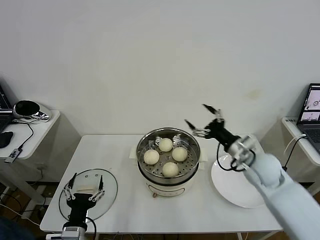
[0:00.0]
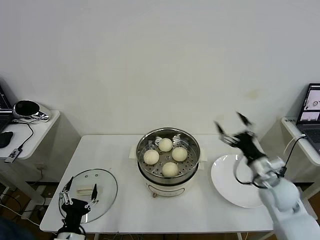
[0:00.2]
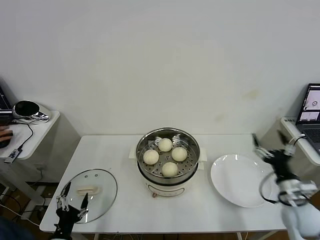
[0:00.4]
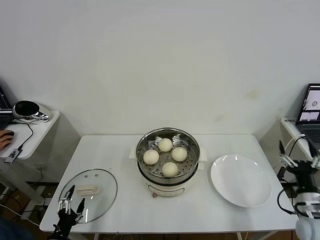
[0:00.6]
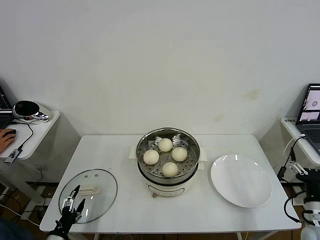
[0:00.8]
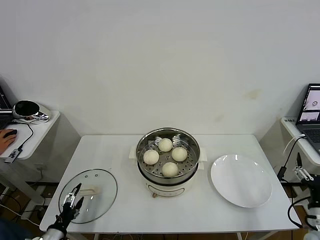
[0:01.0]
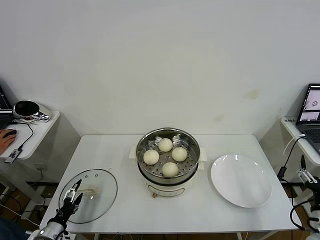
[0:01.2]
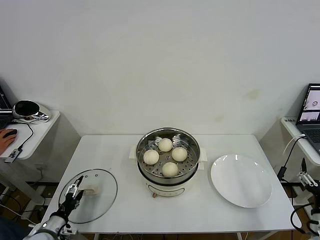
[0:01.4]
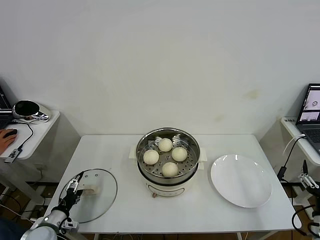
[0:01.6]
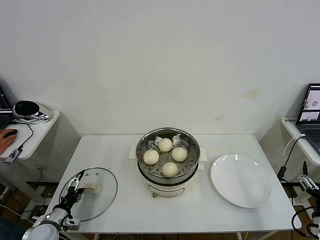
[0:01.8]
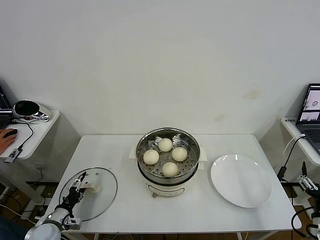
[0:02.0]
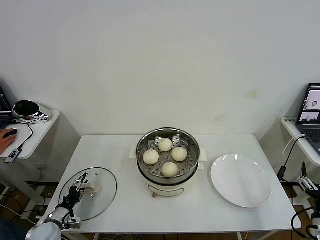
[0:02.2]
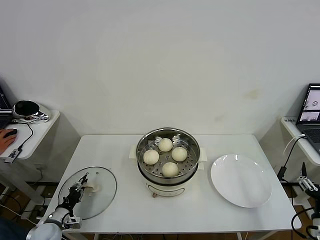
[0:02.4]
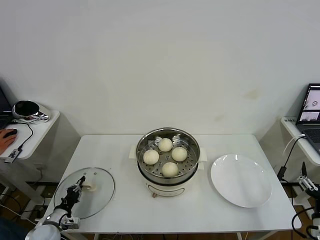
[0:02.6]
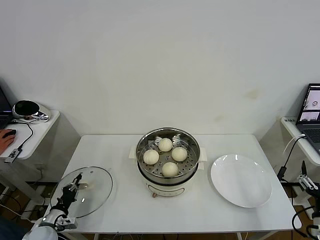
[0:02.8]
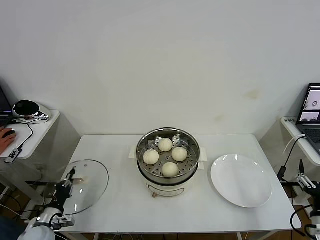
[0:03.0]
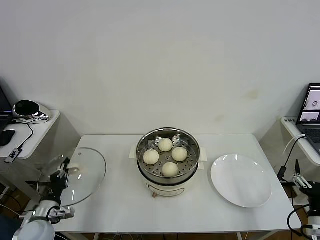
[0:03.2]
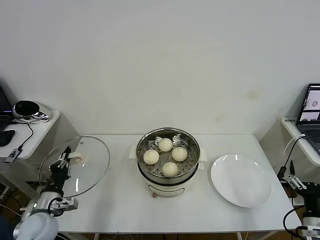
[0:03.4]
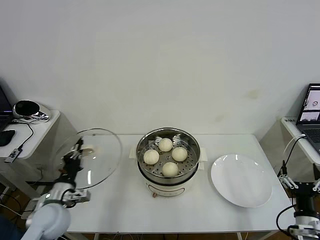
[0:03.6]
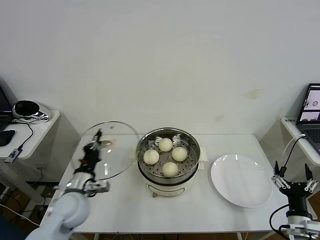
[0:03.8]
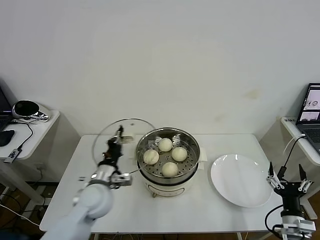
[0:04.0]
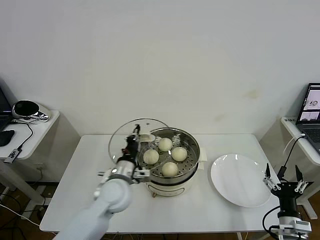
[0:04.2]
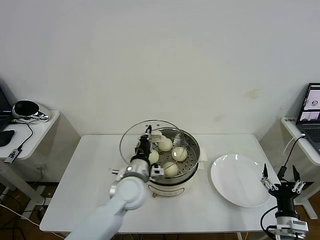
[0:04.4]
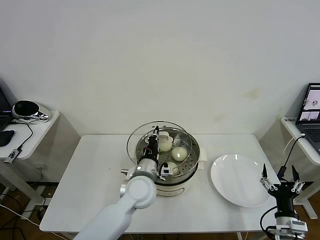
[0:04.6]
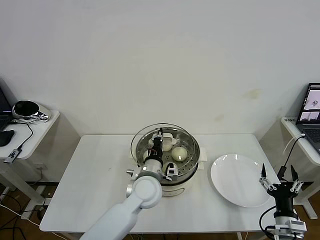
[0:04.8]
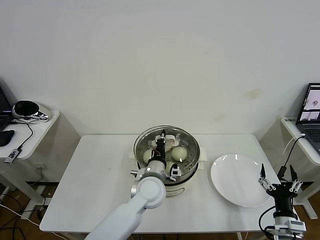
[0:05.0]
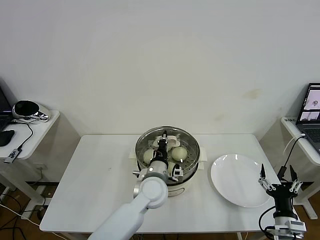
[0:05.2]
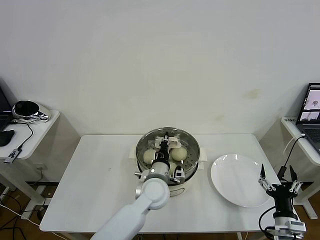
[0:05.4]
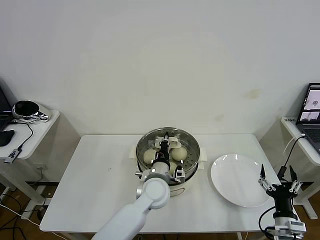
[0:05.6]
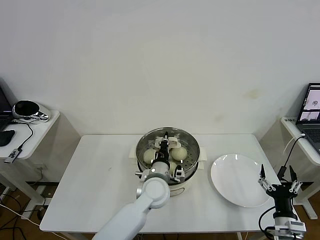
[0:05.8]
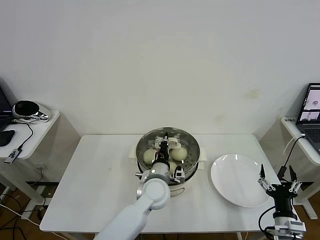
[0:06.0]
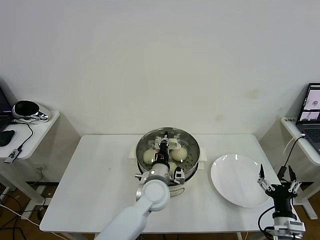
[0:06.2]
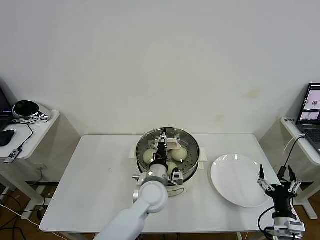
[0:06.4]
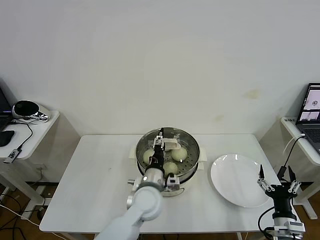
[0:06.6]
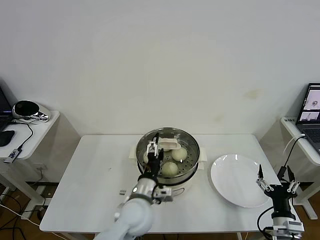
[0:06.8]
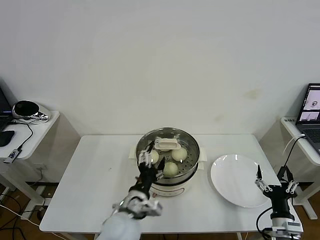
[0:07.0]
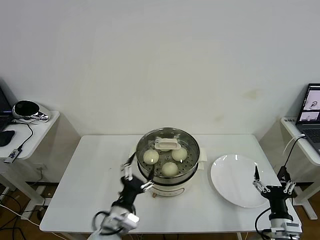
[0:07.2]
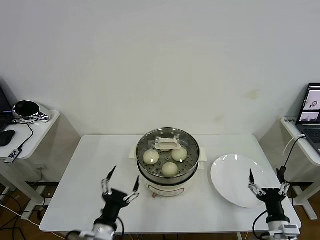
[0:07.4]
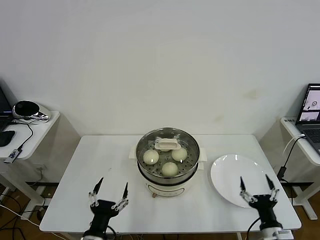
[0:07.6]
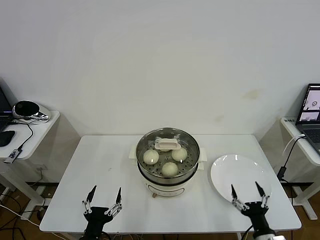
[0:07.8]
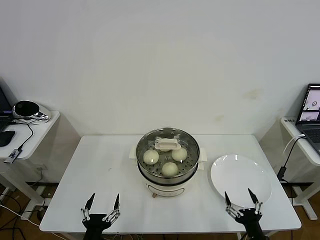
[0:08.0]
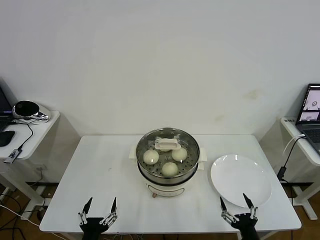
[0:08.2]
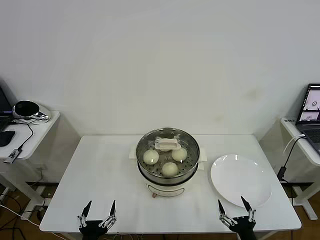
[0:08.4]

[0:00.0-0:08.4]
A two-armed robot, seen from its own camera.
Task of the whole recording: take steamed baozi put them in steamer then cover it.
Step, 0:00.0 to 0:02.6: Grasp the pot lid with left gripper.
Step, 0:02.8 to 0:06.8: Place the pot lid on the steamer with left gripper.
0:00.0 to 0:01.4: The left gripper shifts roughly 20 cm to the left and downward; the right gripper goes roughly 30 cm backward, to the right and downward.
0:01.4 to 0:02.8: The left gripper closes.
0:02.8 to 0:04.2: The right gripper goes approximately 5 cm to the left; the left gripper shifts roughly 30 cm to the right and upward.
0:04.2 to 0:05.6: The left gripper goes some 15 cm to the right.
0:05.6 to 0:07.0: The left gripper is displaced backward and to the left by some 10 cm, and opens its fingers.
0:07.0 to 0:08.4: The right gripper goes approximately 10 cm backward and to the left, while the left gripper goes about 25 cm backward, to the left and downward.

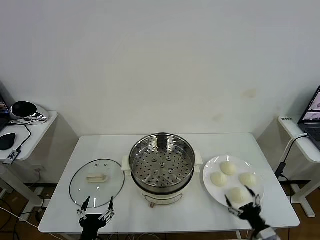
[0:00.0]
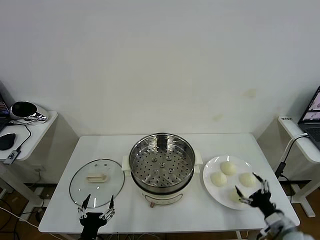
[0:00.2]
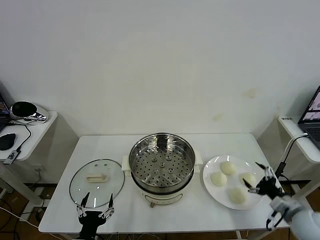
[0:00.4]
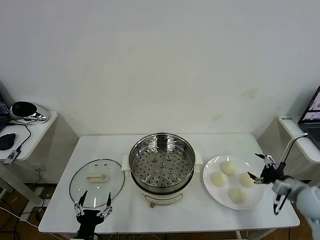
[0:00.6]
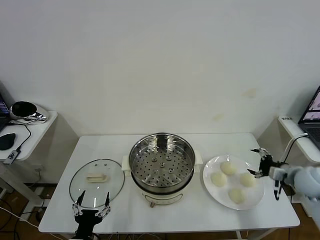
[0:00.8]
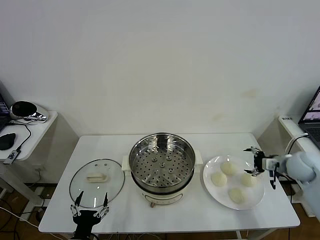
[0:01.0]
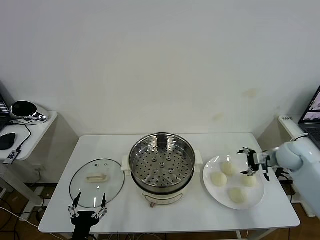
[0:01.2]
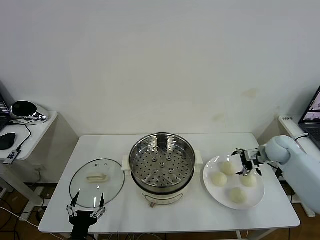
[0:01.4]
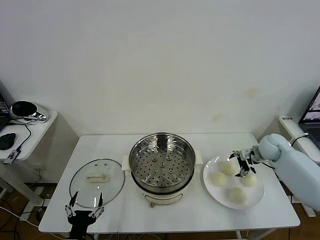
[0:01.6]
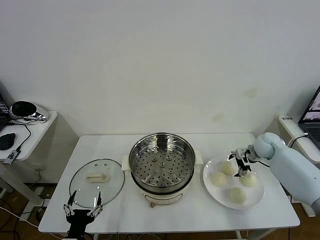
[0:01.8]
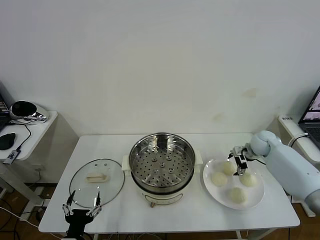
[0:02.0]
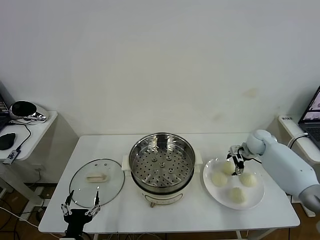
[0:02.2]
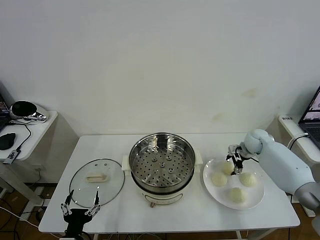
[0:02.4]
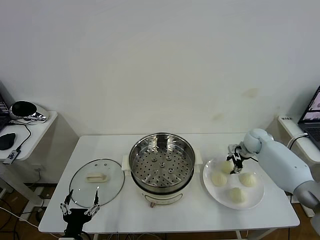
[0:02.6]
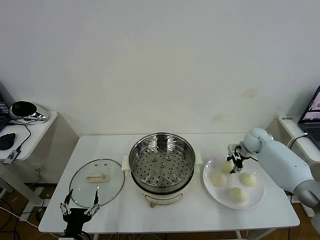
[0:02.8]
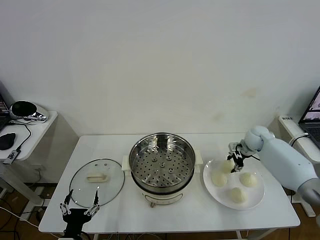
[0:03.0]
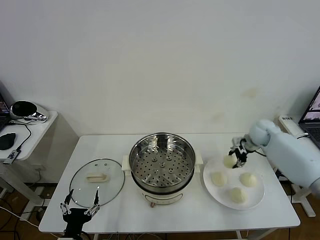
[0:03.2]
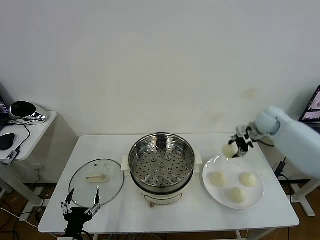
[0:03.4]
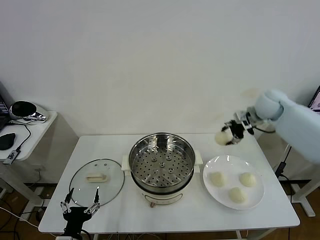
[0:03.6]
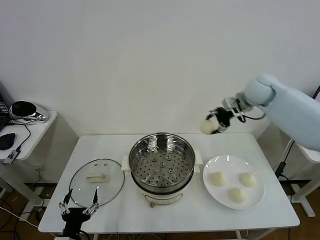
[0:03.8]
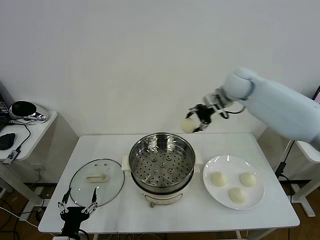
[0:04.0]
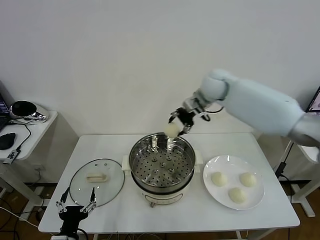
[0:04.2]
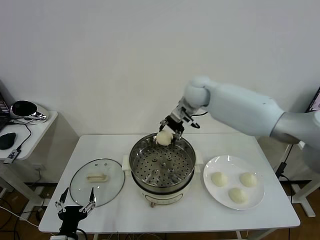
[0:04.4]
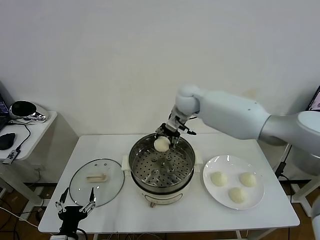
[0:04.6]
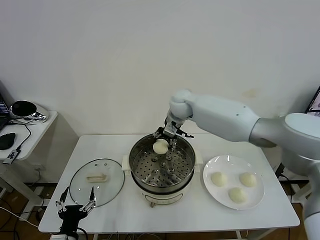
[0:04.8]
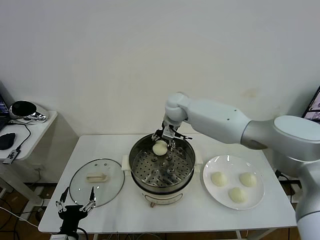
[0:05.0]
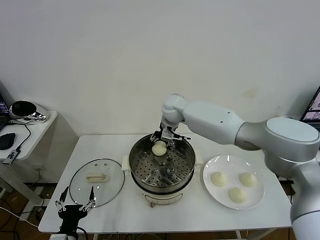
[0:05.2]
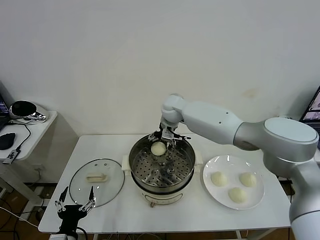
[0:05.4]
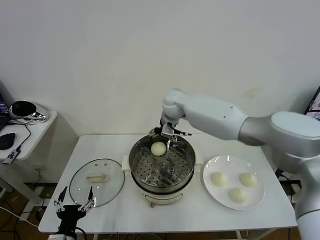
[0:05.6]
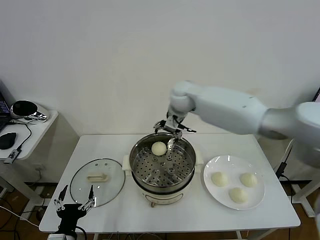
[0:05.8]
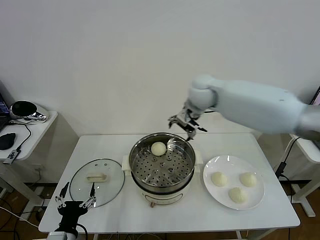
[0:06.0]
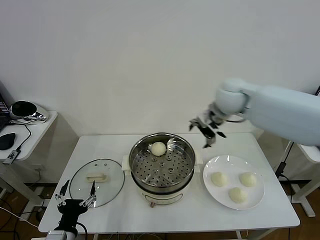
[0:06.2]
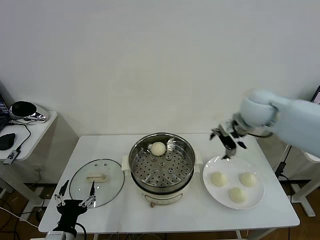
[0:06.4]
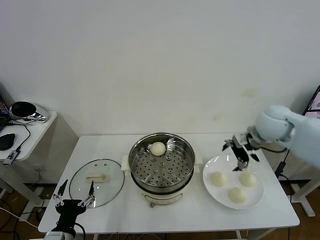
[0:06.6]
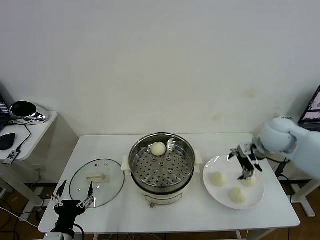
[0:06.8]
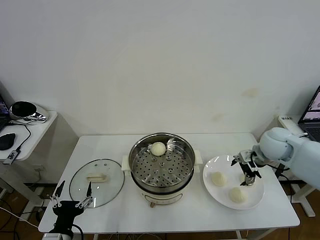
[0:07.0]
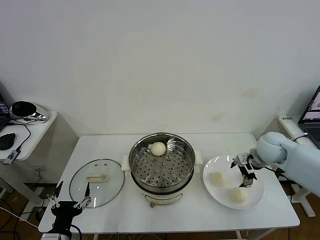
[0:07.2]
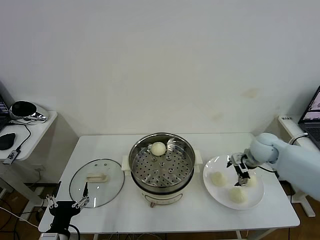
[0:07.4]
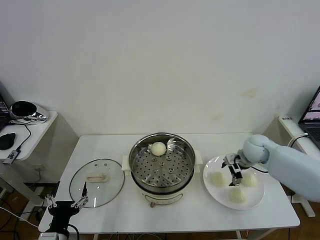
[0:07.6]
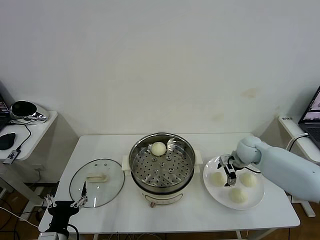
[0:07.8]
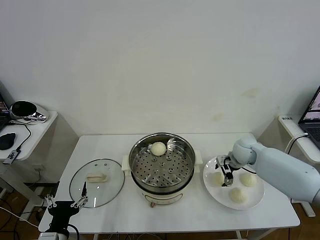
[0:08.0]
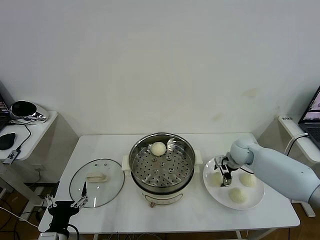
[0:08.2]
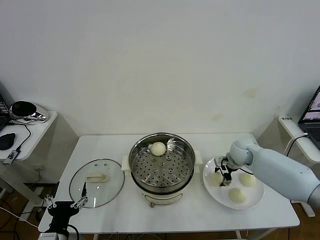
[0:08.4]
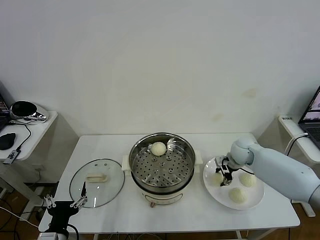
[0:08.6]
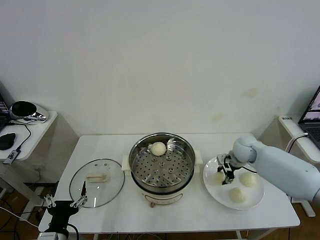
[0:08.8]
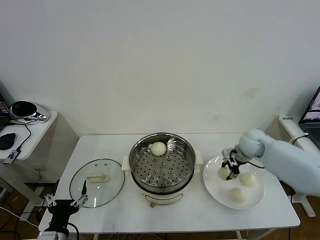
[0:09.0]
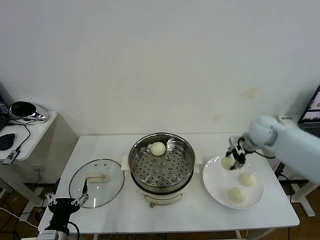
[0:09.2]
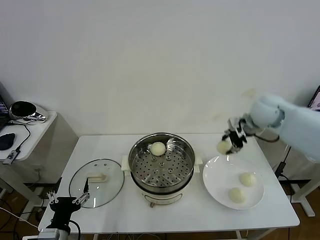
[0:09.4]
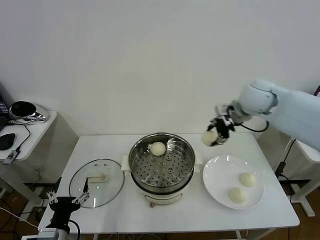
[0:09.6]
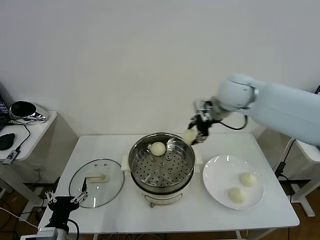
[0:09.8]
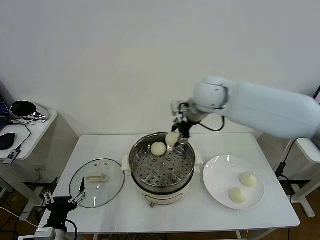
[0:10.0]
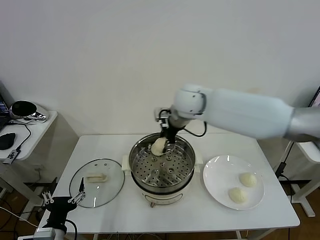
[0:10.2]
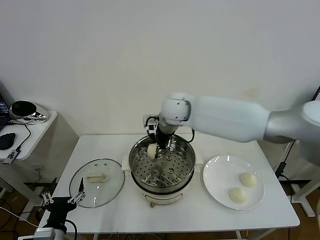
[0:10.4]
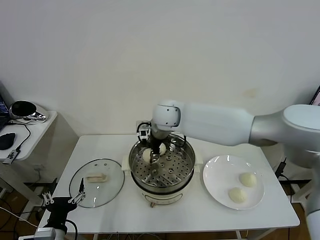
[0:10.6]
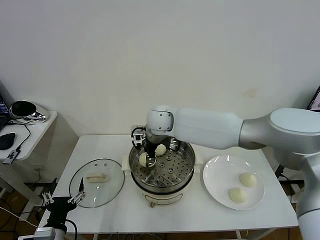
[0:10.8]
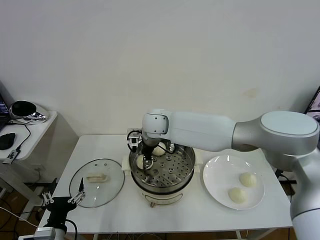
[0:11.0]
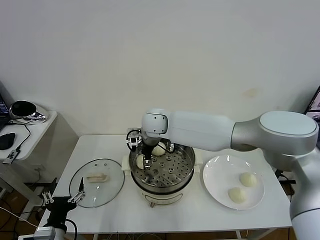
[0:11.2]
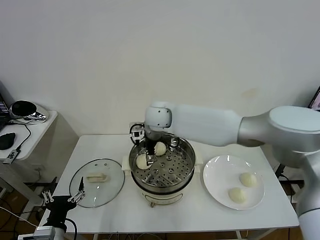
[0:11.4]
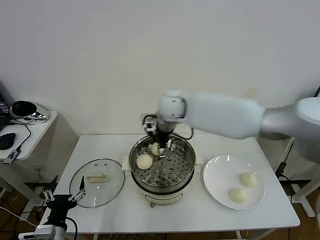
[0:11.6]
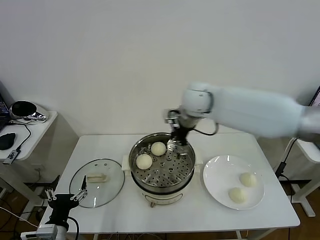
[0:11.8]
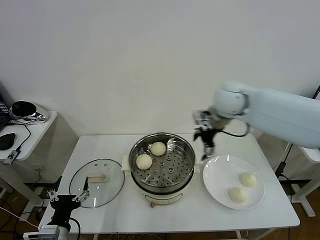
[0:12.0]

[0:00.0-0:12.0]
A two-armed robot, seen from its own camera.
Task of the whole recording: take steamed baozi put them in steamer then cover it.
Step, 0:00.0 to 0:02.6: Grasp the baozi in the plate with right gripper.
Step, 0:02.8 to 0:05.6: Place the baozi on the steamer with right gripper.
Step, 0:05.8 to 0:08.4: Grasp the baozi in the plate with right gripper.
Step, 0:08.8 to 0:11.4: Place the baozi on the steamer with right gripper.
0:01.6 to 0:03.0: The right gripper ends up some 5 cm from where it was, and closes its fingers.
0:03.0 to 0:04.4: The right gripper shifts roughly 35 cm to the left and upward.
0:04.4 to 0:06.0: The right gripper heads to the right, backward and upward, covering some 15 cm, and opens.
0:06.0 to 0:07.6: The right gripper is displaced downward and to the right by about 25 cm.
0:07.6 to 0:09.0: The right gripper heads upward, covering some 10 cm, and closes its fingers.
0:09.0 to 0:10.4: The right gripper travels to the left by approximately 30 cm.
0:10.4 to 0:12.0: The right gripper goes approximately 25 cm to the right, and opens.

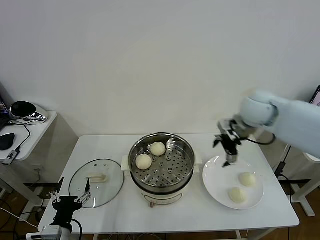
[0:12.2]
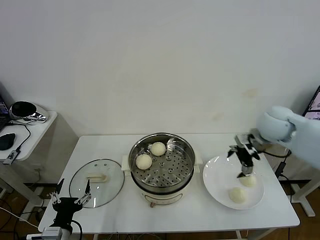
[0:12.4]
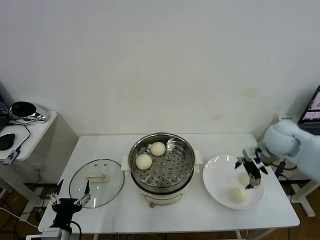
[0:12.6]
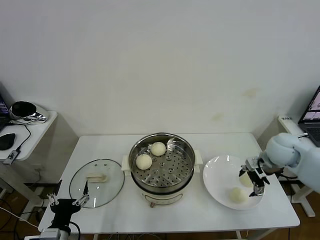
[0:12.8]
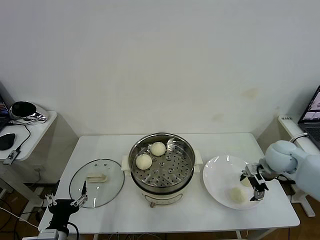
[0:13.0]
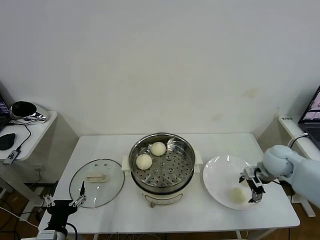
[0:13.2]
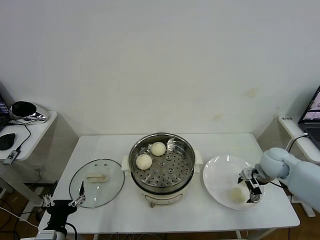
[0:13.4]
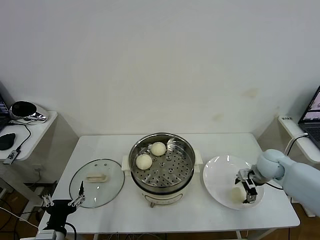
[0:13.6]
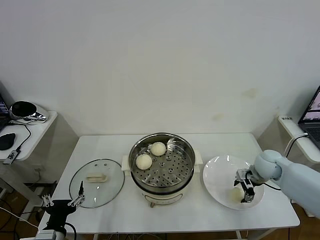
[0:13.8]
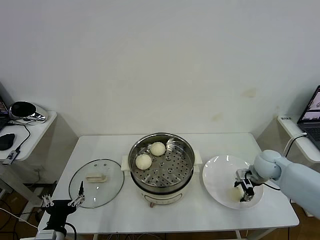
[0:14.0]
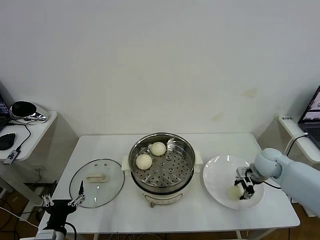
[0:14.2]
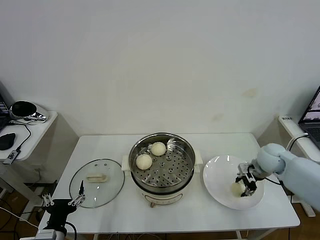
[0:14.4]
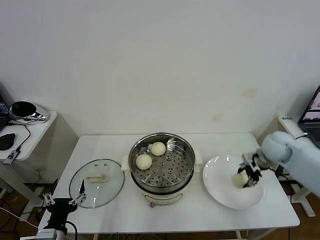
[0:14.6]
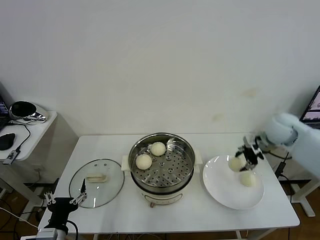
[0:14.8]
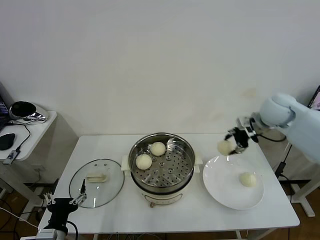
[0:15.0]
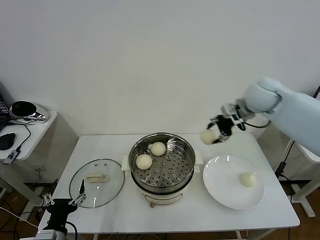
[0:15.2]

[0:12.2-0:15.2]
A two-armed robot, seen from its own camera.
Task of the whole recording: take steamed baozi put them in steamer then cover it.
Step, 0:12.2 to 0:14.0: Grasp the baozi in the plate with right gripper.
0:12.2 to 0:13.8: The right gripper is displaced downward by about 20 cm, and closes up.
0:13.8 to 0:15.2: The right gripper heads upward and to the left, covering approximately 30 cm.
